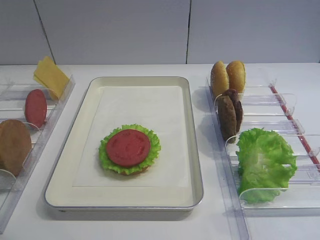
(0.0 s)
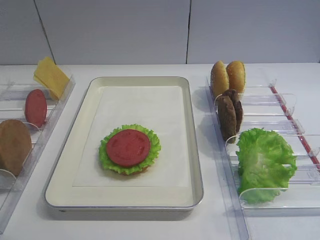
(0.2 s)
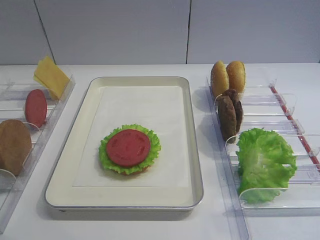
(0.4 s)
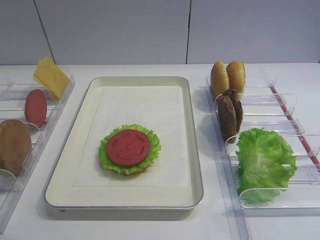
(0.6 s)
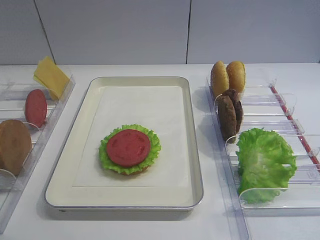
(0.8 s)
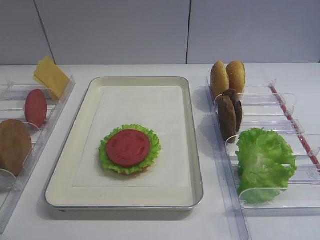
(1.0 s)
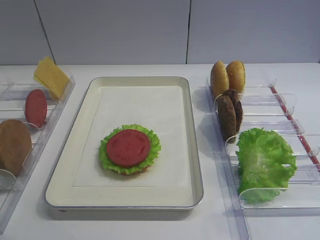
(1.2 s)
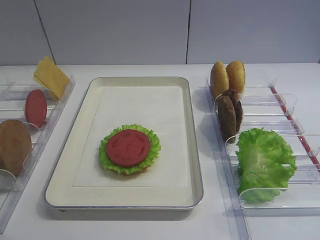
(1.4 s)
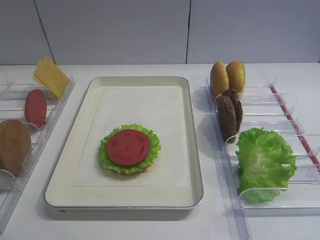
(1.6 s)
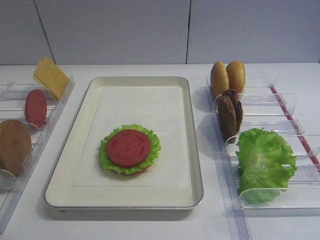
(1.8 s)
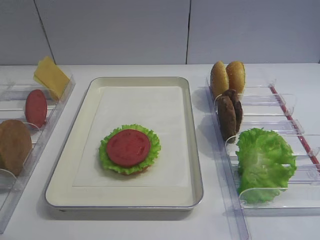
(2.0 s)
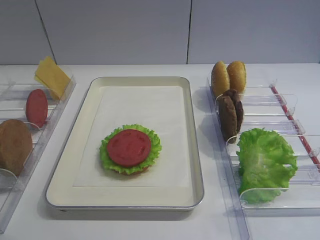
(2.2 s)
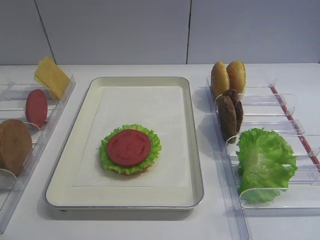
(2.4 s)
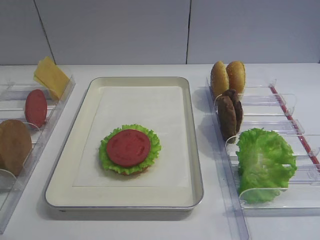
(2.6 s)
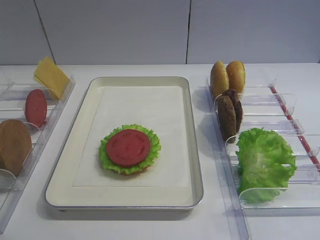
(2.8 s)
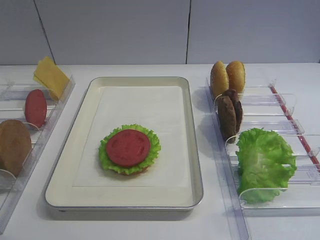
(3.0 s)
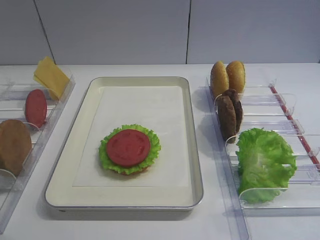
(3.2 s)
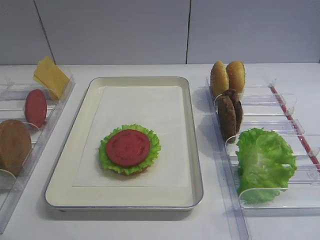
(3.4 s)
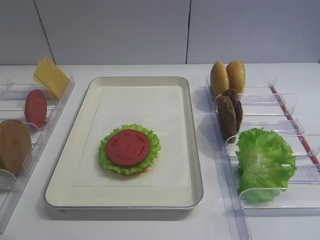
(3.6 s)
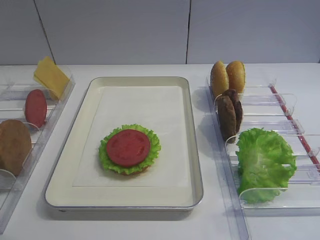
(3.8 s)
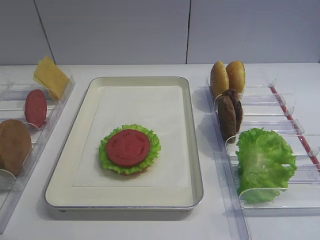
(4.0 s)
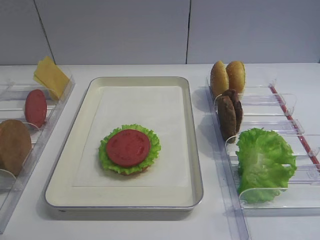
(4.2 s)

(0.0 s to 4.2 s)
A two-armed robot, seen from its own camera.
1.4 s - 4.2 s: Both grippers stay put.

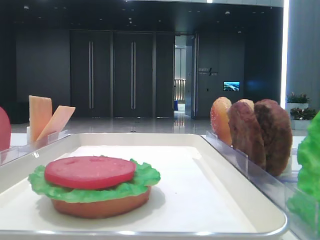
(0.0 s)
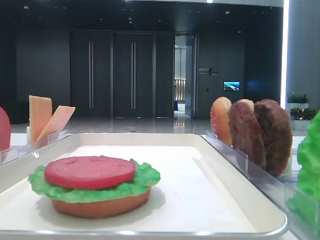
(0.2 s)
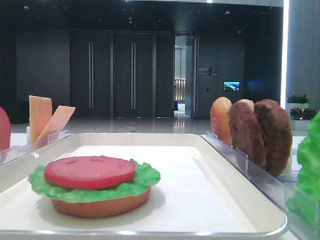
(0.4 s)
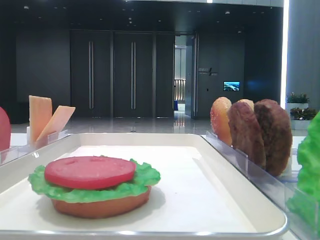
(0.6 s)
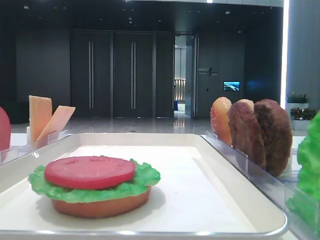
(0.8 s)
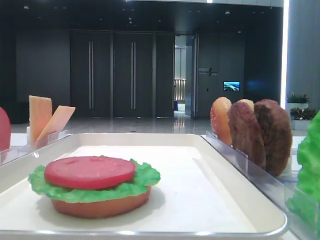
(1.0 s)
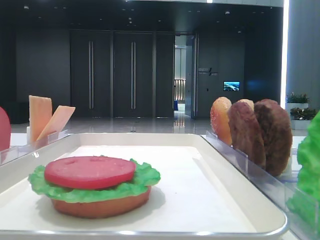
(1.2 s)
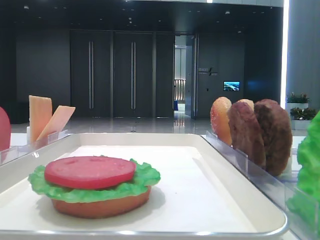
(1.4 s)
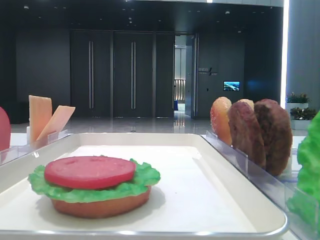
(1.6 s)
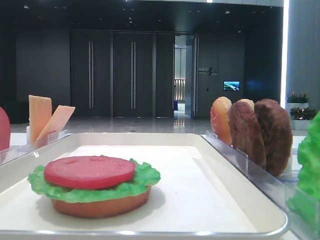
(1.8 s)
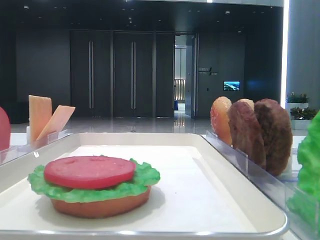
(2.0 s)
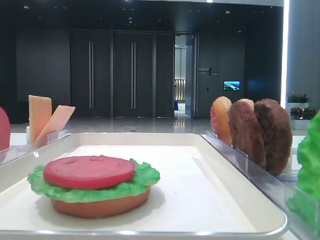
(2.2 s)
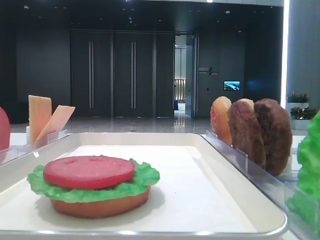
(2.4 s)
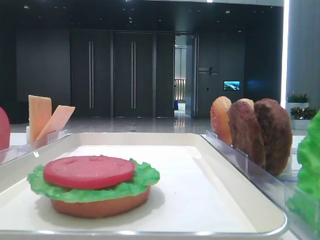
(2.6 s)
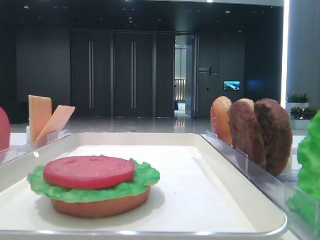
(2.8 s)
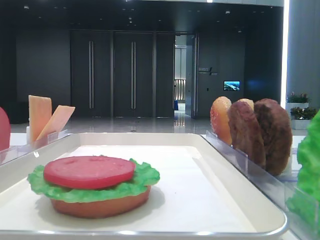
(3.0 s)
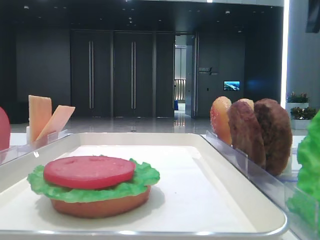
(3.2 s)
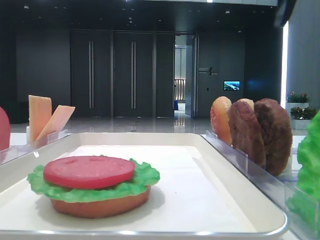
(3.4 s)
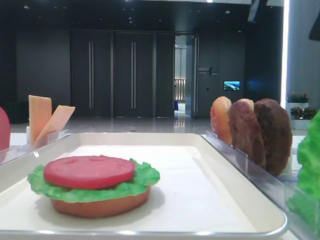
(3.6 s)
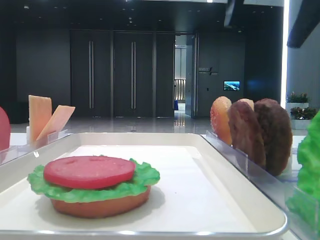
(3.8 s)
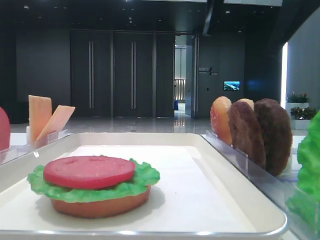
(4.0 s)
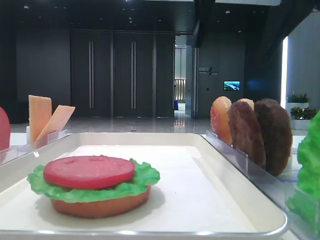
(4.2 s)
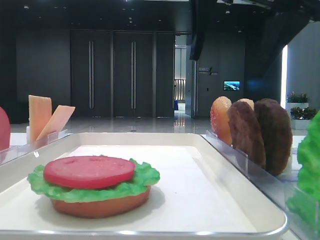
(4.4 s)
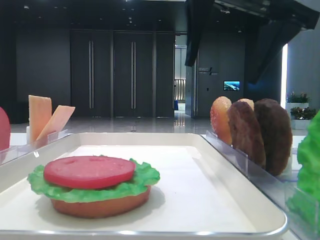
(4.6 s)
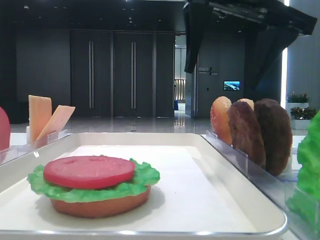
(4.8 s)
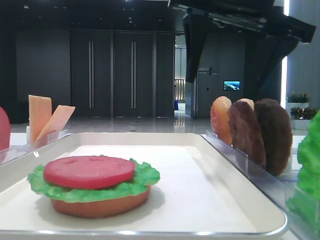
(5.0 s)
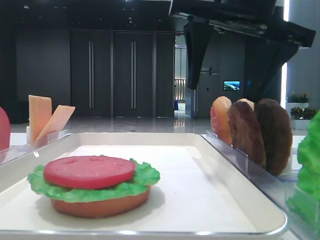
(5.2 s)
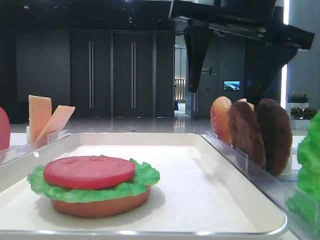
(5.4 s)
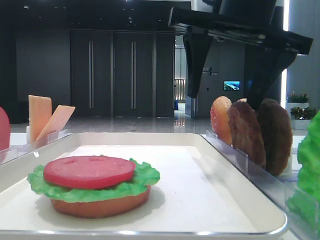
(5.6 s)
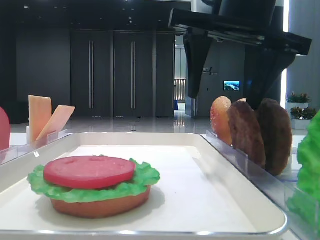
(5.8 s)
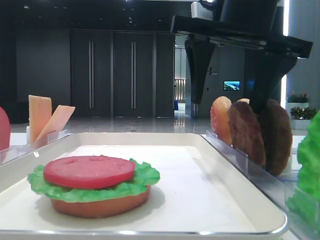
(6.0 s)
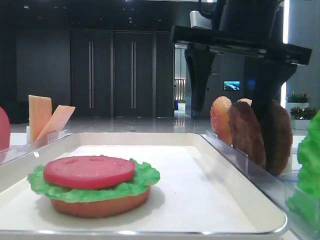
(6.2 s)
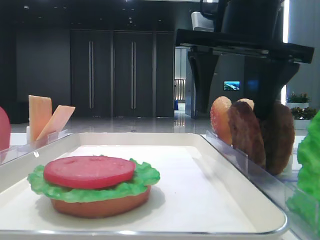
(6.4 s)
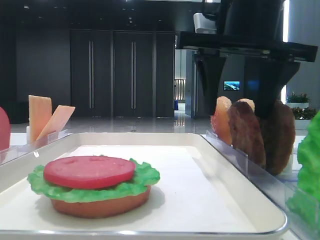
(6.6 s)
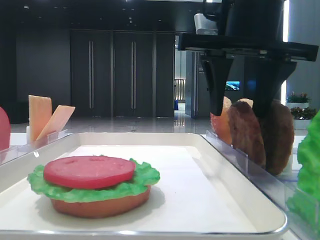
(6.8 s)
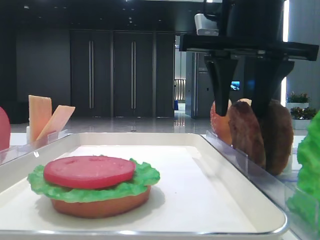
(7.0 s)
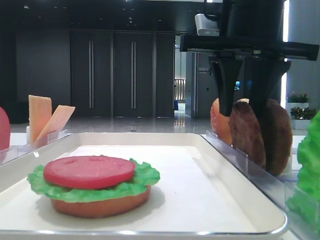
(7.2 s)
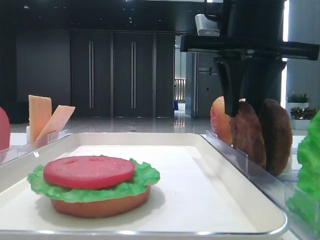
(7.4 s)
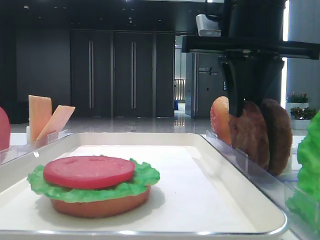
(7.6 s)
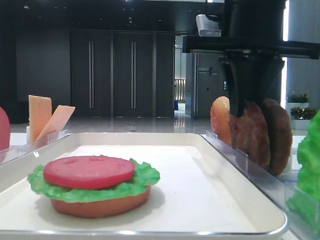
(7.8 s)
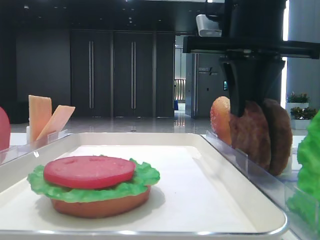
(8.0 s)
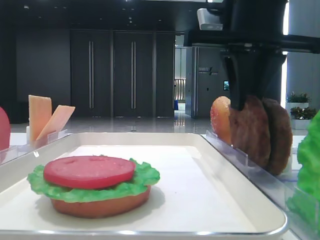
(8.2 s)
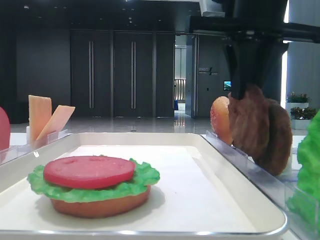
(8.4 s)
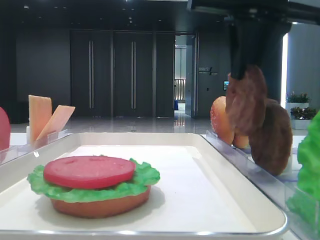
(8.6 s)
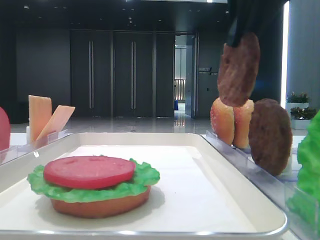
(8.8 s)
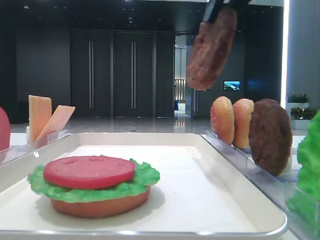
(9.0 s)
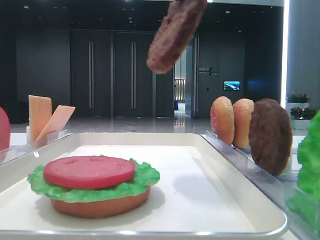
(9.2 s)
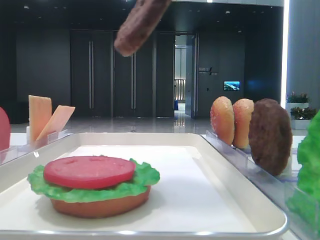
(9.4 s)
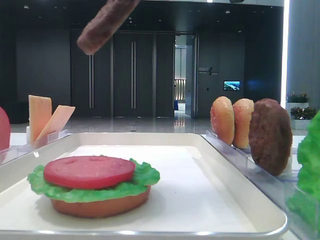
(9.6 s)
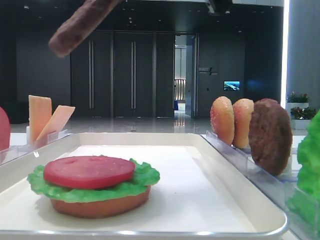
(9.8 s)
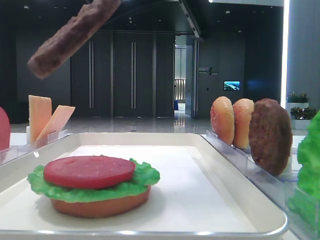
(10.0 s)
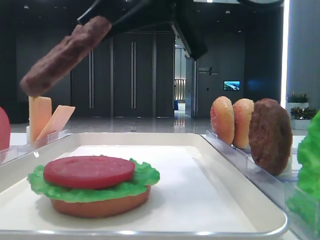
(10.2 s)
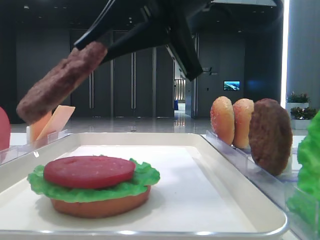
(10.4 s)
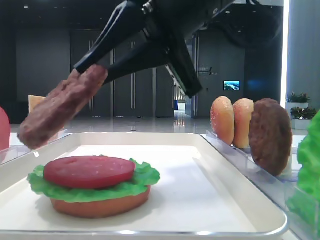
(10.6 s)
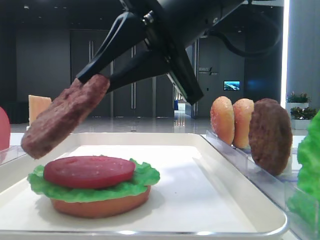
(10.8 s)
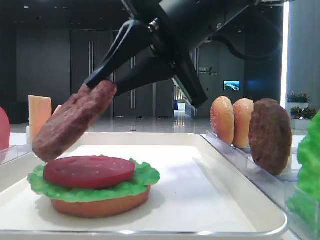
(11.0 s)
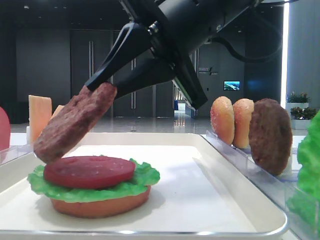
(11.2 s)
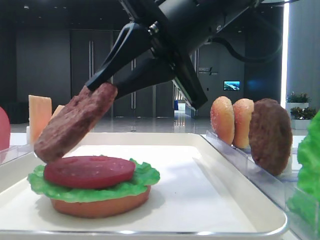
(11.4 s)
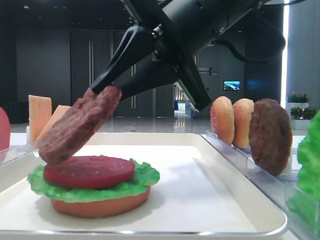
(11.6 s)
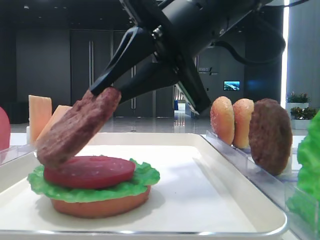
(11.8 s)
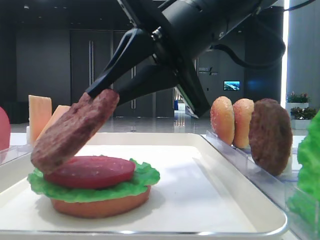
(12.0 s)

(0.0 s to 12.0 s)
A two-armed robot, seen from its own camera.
Step, 0.0 s - 7.6 s: Grab the patty with the right hand.
3.0 s - 4.4 s: The right gripper heads to the left, covering roughly 15 cm.
4.4 s - 6.0 s: There are only small adjustments of the grippers.
6.0 s - 7.6 s: The right gripper closes its fingers.
7.6 s - 9.0 s: The right gripper moves upward, approximately 10 cm.
9.0 s - 10.4 s: The right gripper travels downward and to the left by roughly 10 cm.
10.4 s - 12.0 s: The grippers stay close to where they were, moving slightly.

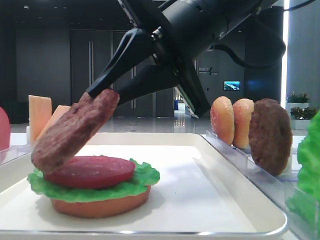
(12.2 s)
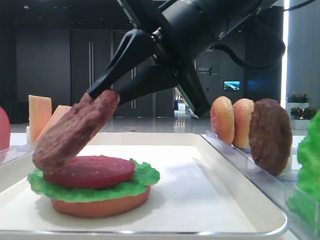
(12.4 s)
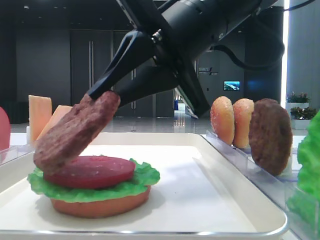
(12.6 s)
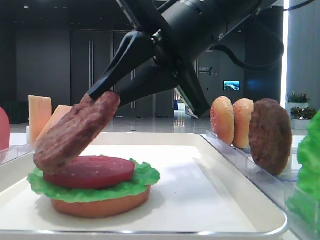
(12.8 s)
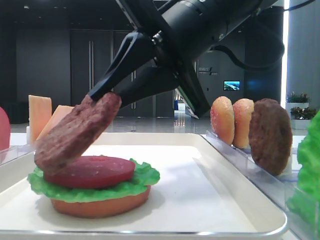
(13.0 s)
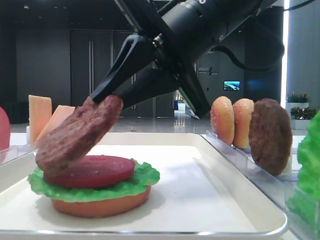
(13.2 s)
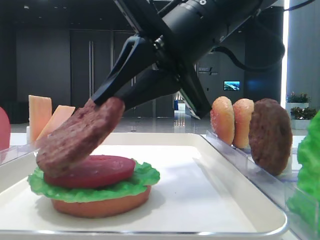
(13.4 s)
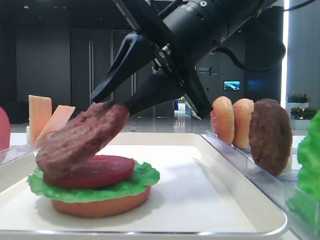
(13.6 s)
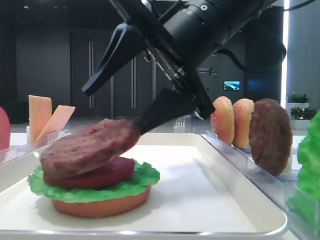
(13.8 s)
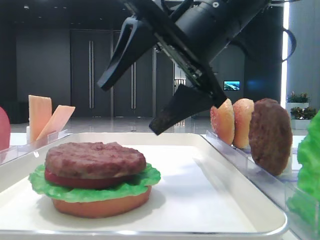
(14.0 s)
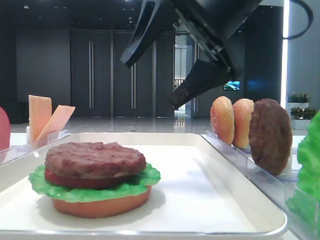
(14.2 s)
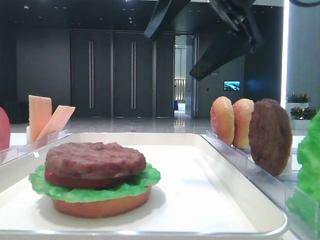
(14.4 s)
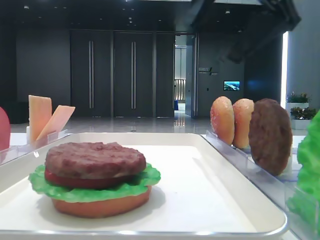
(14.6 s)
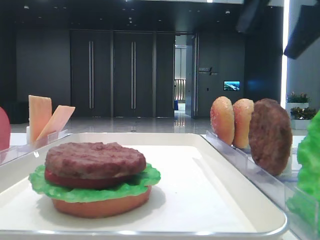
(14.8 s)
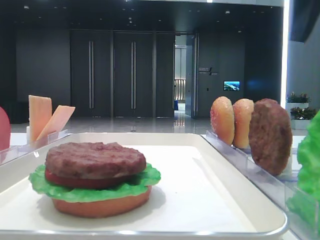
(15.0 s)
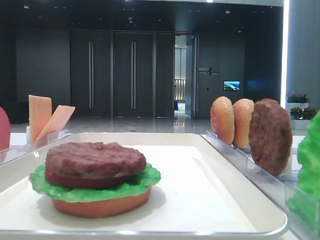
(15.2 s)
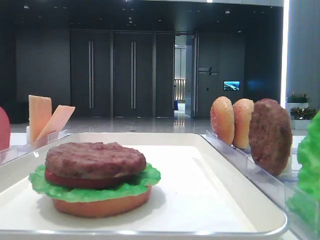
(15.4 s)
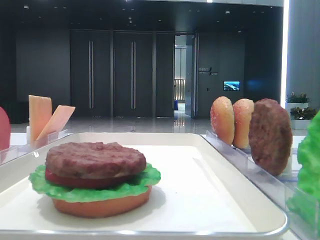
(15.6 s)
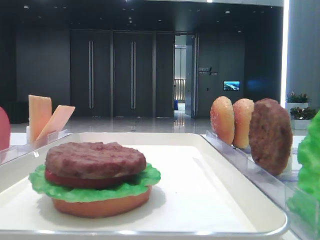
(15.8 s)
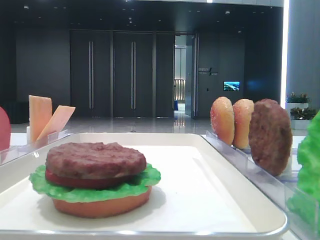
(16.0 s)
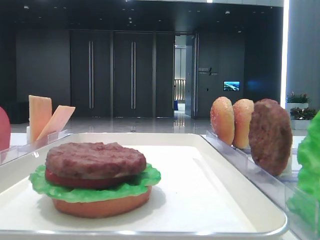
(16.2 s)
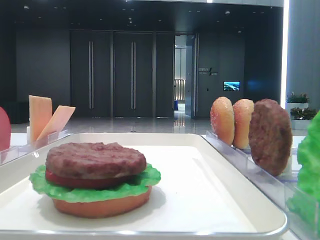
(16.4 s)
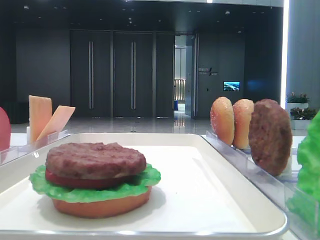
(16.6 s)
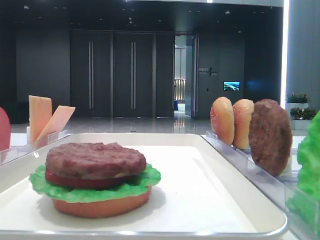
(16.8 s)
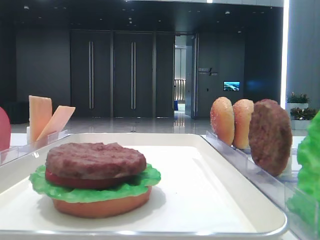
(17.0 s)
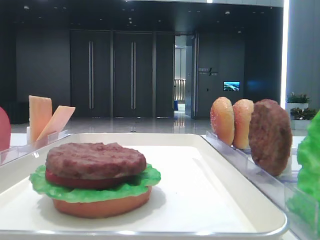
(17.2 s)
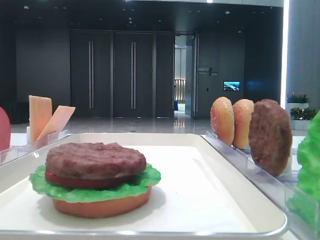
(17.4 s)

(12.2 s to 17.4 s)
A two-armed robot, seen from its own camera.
12.2 s - 14.0 s: The right gripper opens its fingers.
14.0 s - 15.6 s: The right gripper moves to the right, about 25 cm.

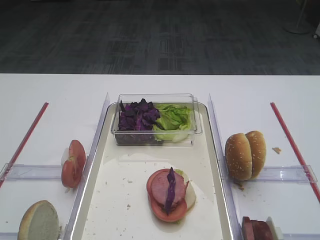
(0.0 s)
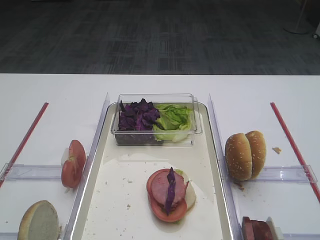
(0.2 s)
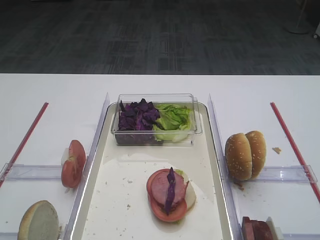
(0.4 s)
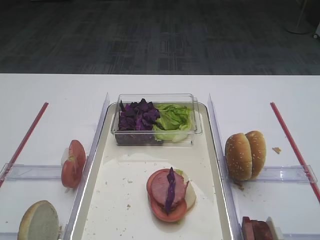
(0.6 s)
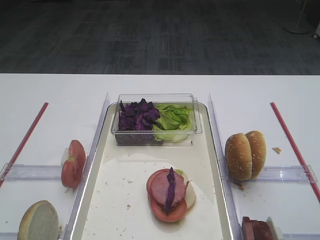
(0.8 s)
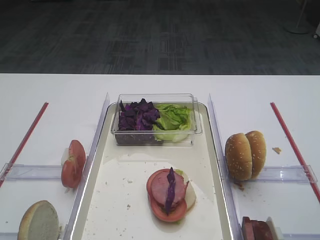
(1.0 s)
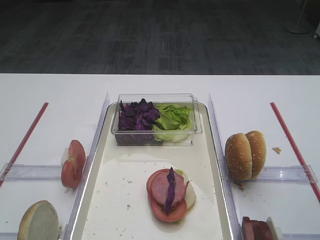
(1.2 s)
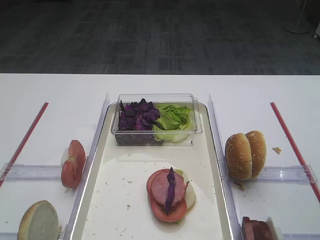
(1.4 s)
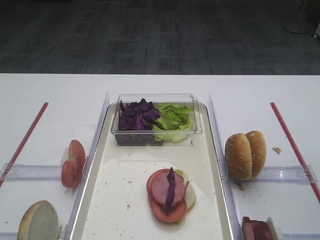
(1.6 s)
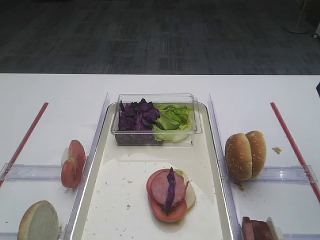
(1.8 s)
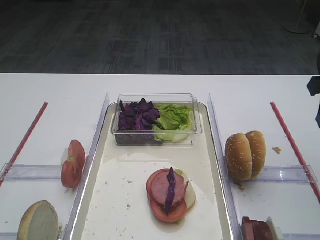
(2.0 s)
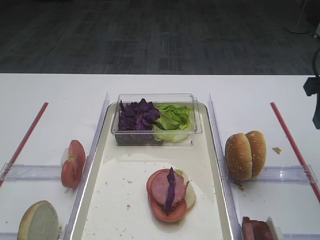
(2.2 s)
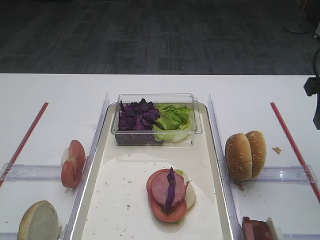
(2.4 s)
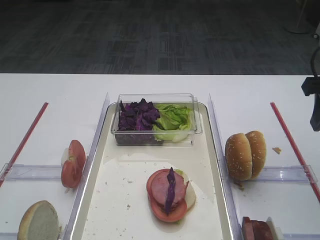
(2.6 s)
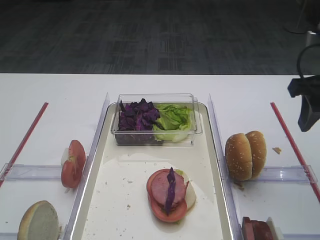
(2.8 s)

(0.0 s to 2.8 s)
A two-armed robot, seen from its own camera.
1.4 s - 2.8 s: The right gripper goes roughly 10 cm forward.
